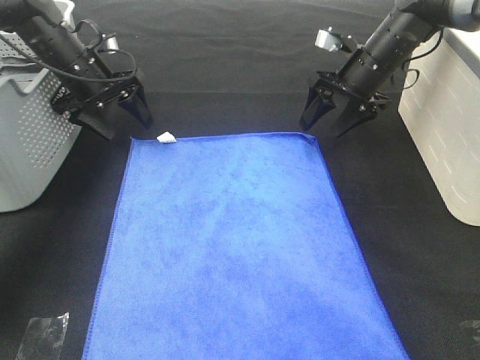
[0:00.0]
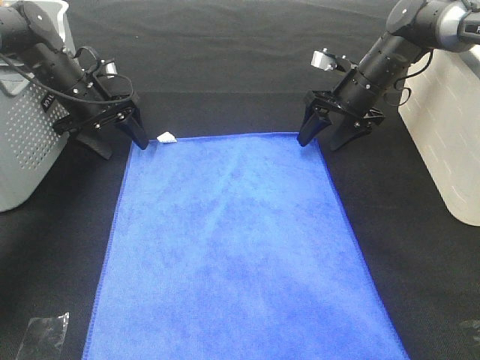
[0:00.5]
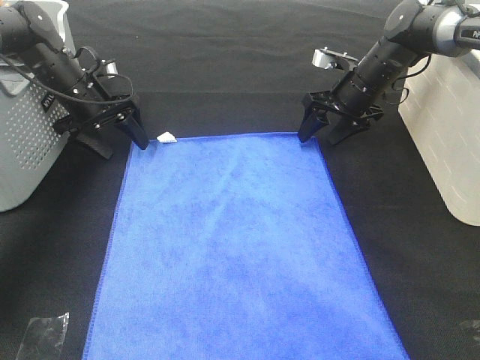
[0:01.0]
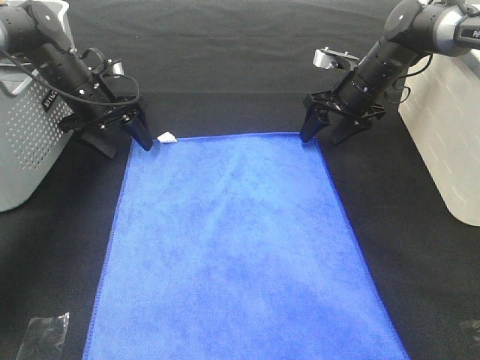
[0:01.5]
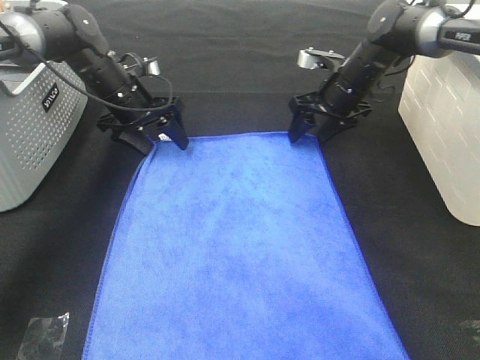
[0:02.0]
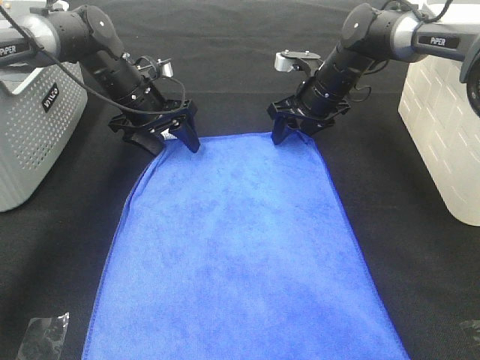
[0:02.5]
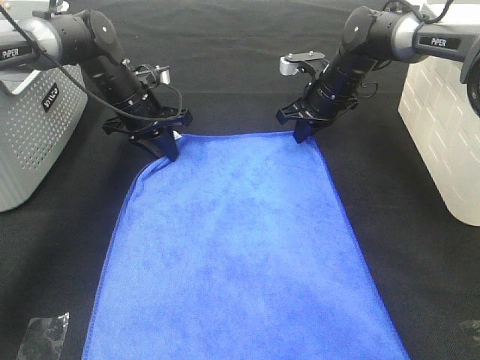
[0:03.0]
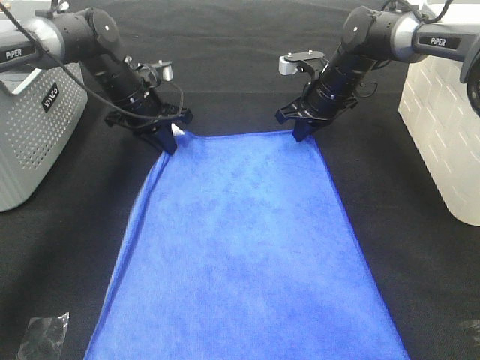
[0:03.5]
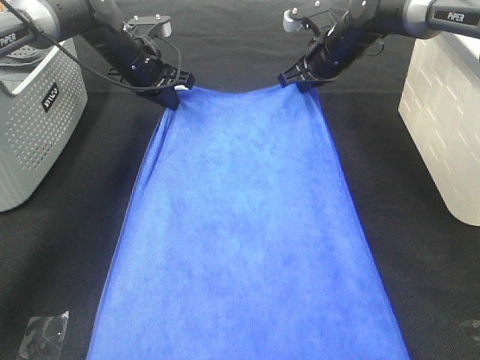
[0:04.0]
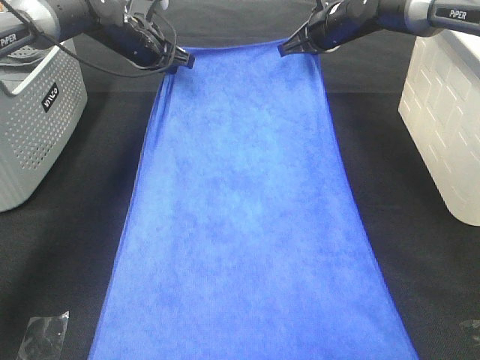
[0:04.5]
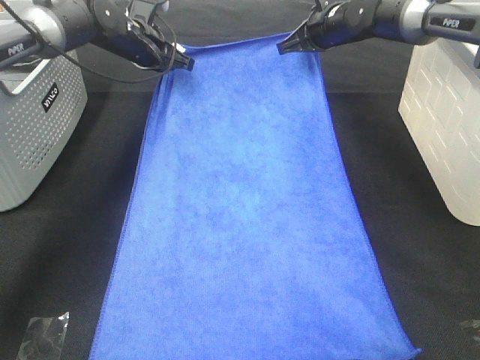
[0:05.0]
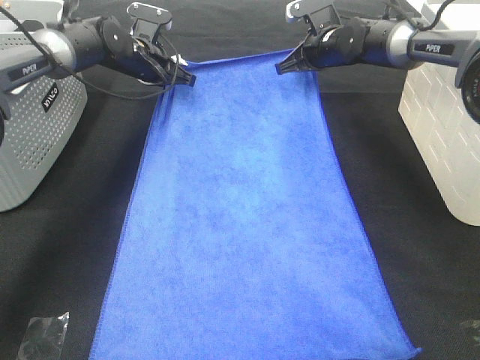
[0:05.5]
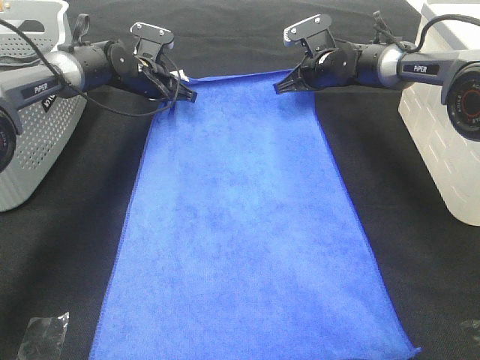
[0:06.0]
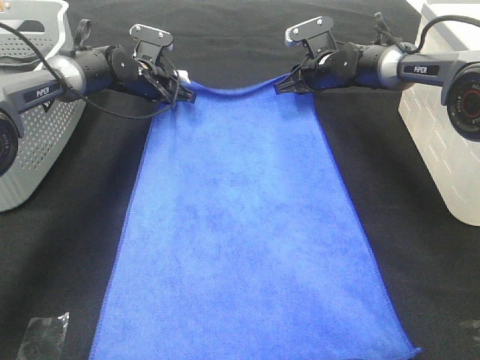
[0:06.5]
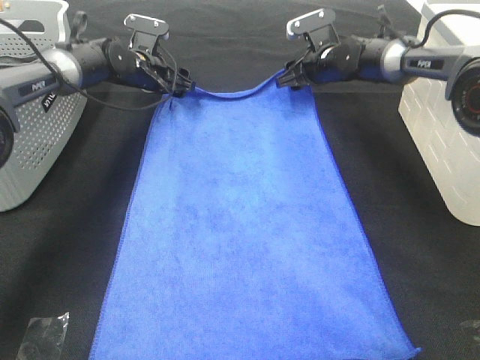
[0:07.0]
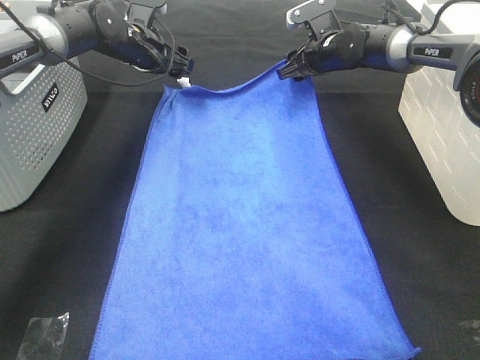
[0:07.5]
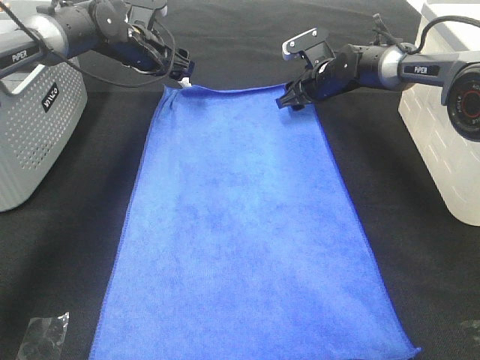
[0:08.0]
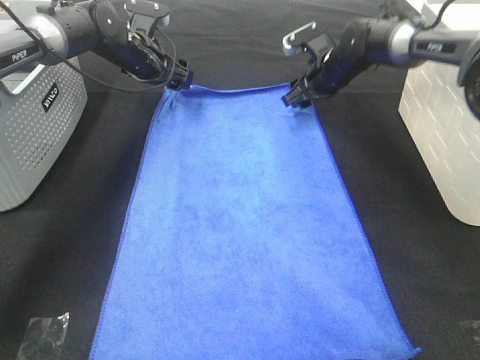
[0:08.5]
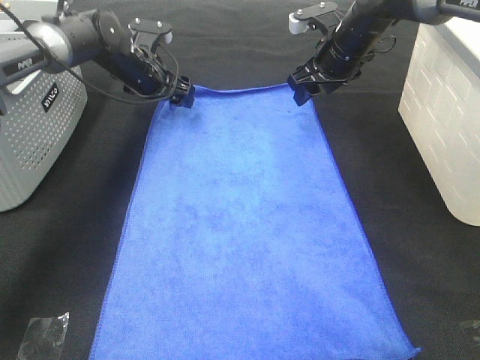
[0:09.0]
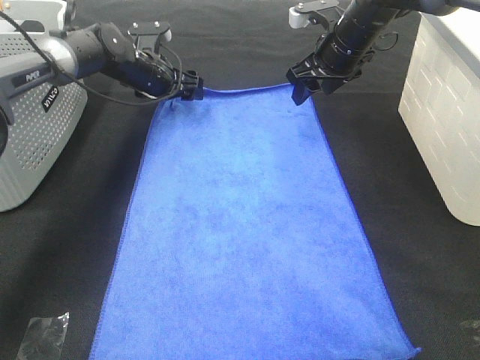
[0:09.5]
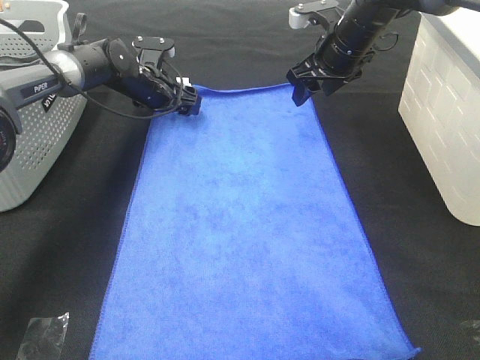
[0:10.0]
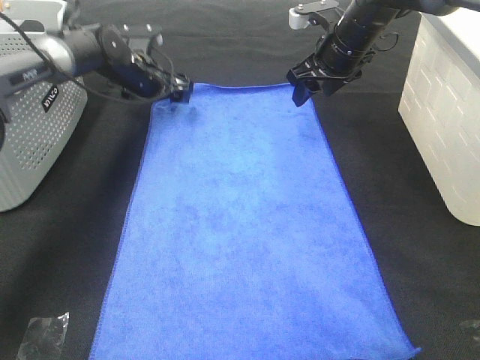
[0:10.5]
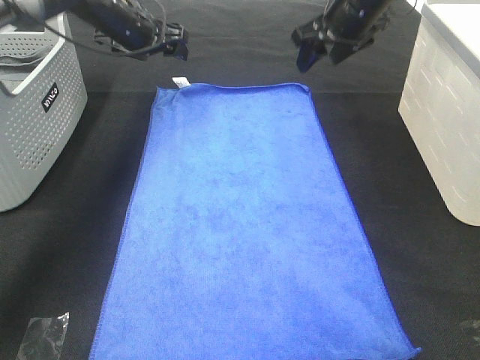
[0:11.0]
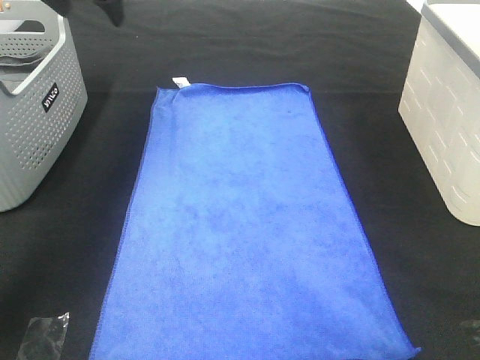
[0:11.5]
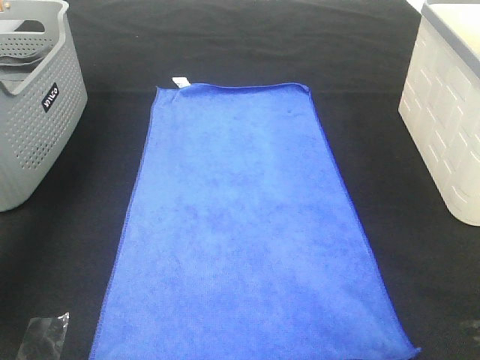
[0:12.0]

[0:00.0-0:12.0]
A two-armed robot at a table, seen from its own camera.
Task of the whole recording: Remove the towel and place it.
Step, 0:00.0 to 0:02.0: Right hand:adjust the blue towel.
Step, 0:00.0 to 0:04.0: Left hand:adjust the blue towel.
0:00.0 to 0:02.0: The left gripper heads to the right, covering roughly 5 cm. The right gripper moves approximately 5 cm.
0:02.0 to 0:04.0: The right gripper travels upward by some 5 cm, and closes its fingers, while the left gripper ends up some 5 cm from where it was, and closes up.
0:04.0 to 0:06.0: The two grippers go approximately 5 cm downward.
0:06.0 to 0:08.0: The left gripper travels upward by about 5 cm, and opens its fingers; the right gripper opens.
0:08.0 to 0:10.0: The right gripper shifts approximately 10 cm upward and backward, while the left gripper moves downward, some 5 cm.
0:10.0 to 0:12.0: The left gripper goes roughly 35 cm upward and to the left, while the right gripper is displaced upward, to the right and backward by approximately 25 cm.

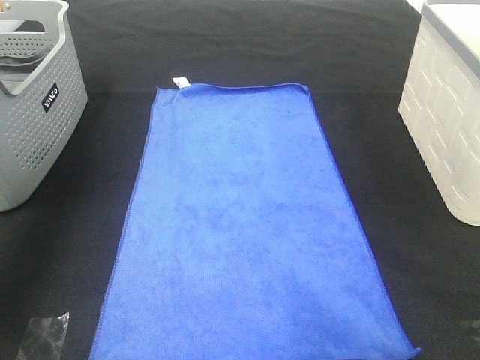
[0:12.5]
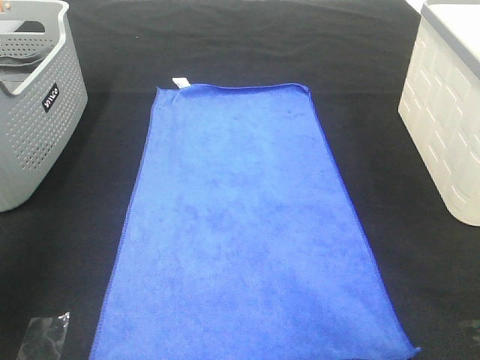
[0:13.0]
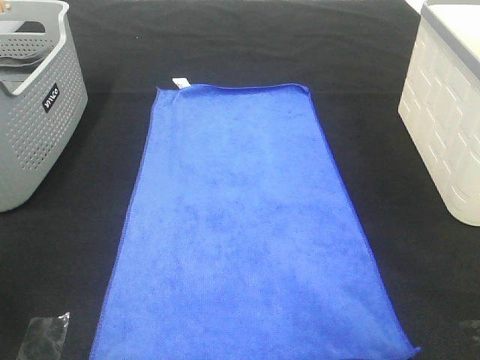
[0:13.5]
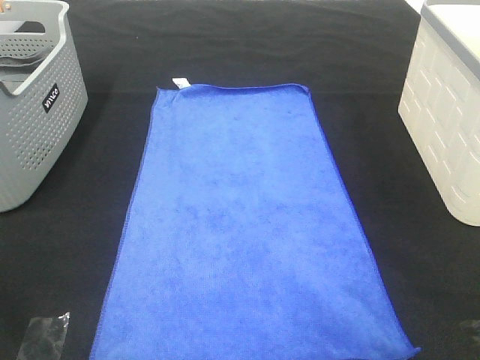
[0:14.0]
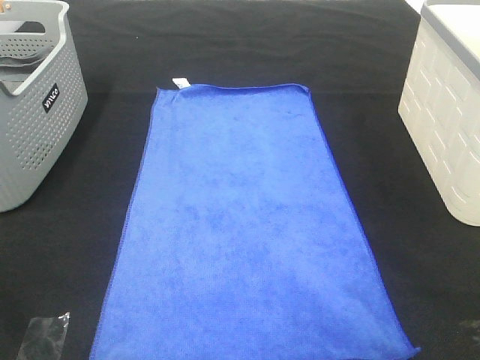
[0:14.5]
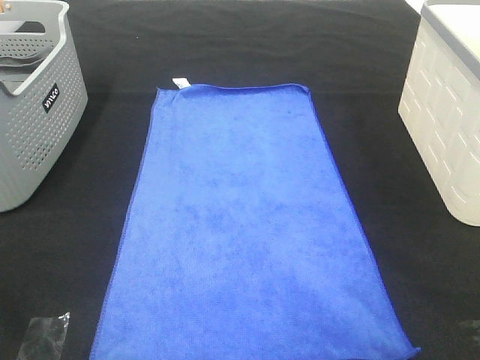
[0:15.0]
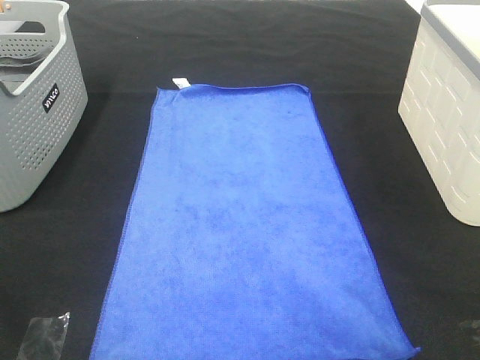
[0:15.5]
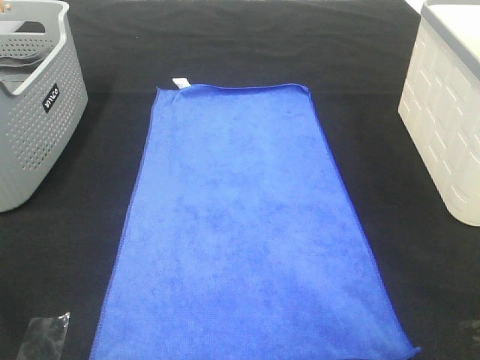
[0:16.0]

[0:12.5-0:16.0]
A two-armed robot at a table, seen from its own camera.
Task of the whole recording: Remove the towel and place it.
0:12.5 to 0:14.5: The left gripper goes some 35 cm backward.
0:14.5 to 0:16.0: Both grippers stay put.

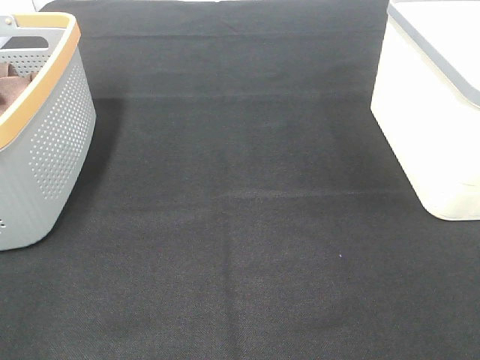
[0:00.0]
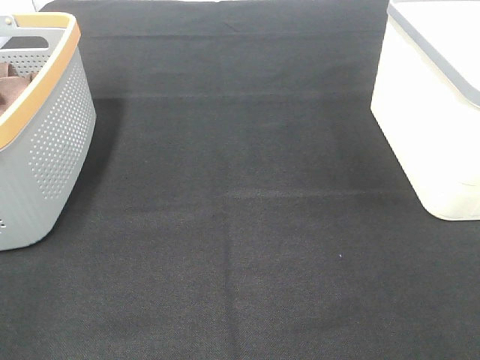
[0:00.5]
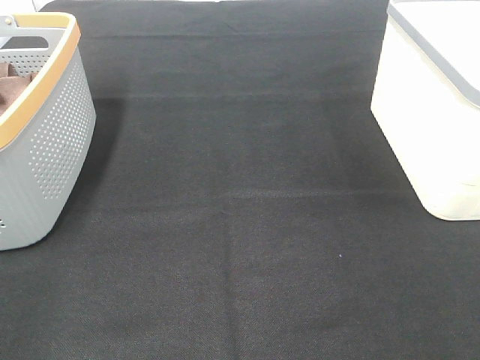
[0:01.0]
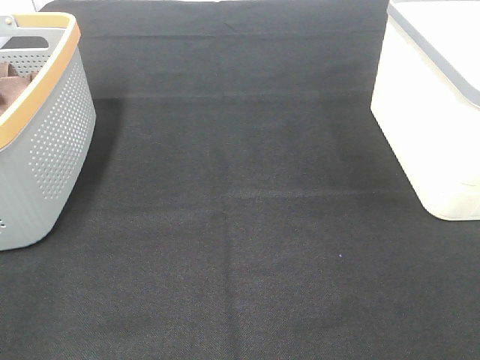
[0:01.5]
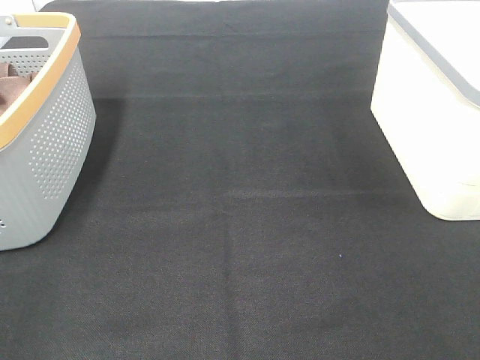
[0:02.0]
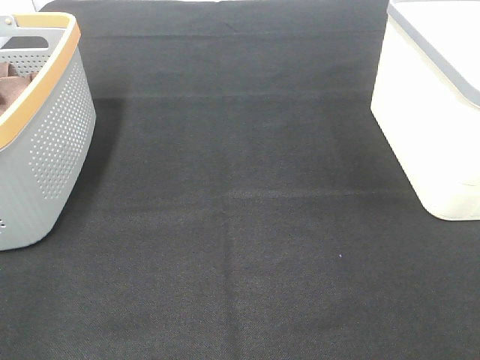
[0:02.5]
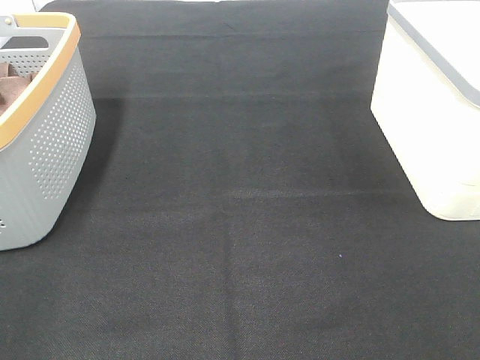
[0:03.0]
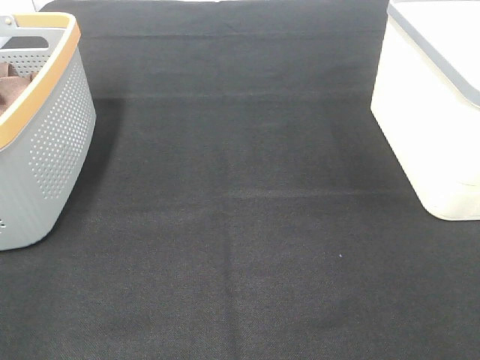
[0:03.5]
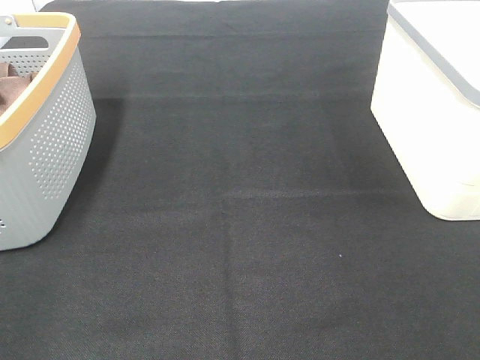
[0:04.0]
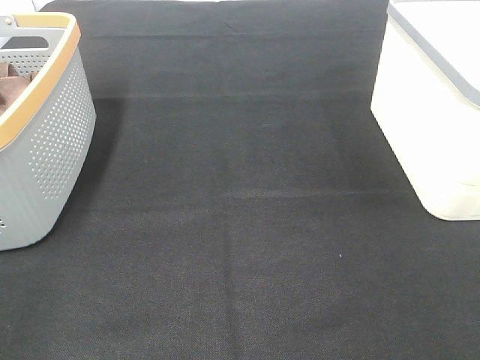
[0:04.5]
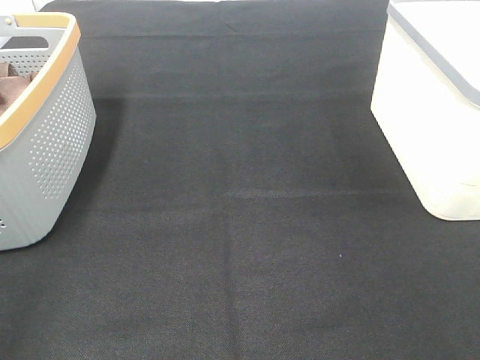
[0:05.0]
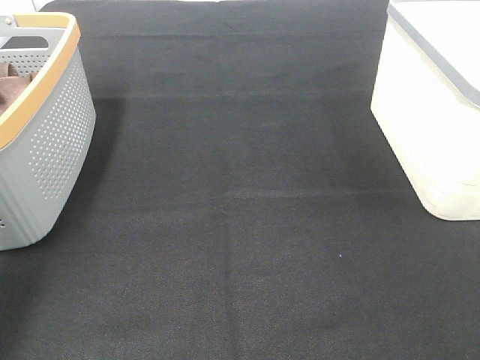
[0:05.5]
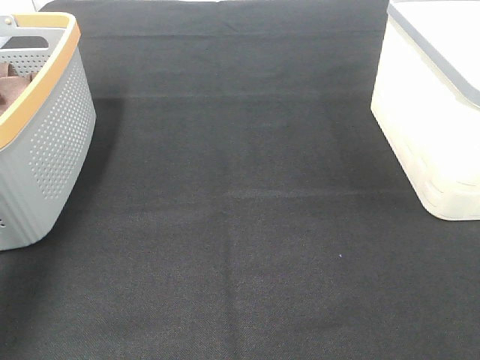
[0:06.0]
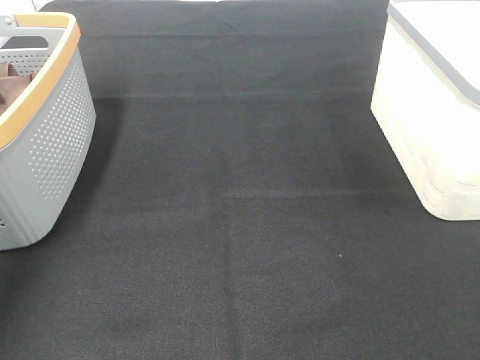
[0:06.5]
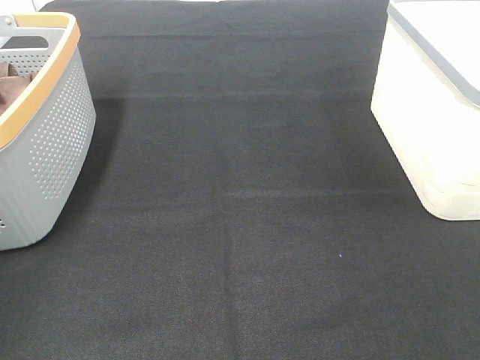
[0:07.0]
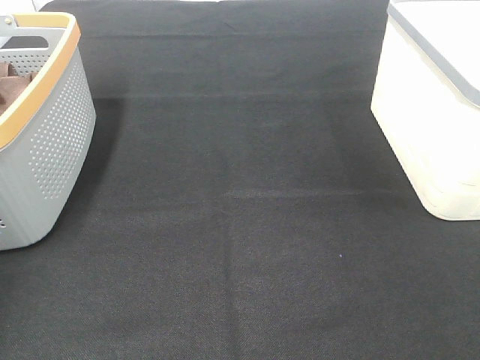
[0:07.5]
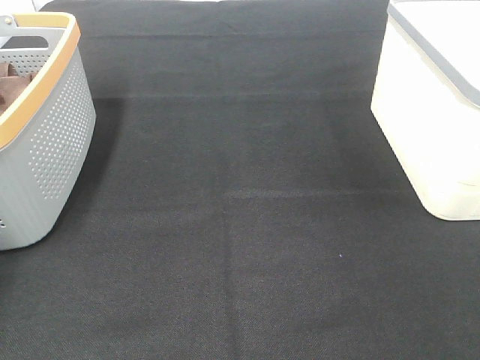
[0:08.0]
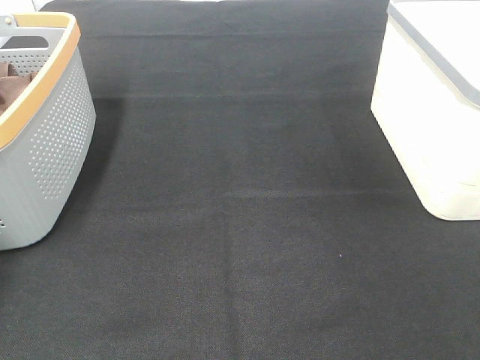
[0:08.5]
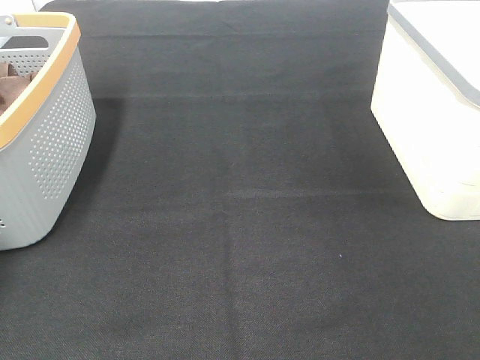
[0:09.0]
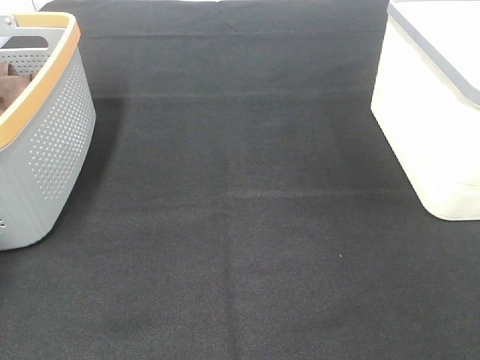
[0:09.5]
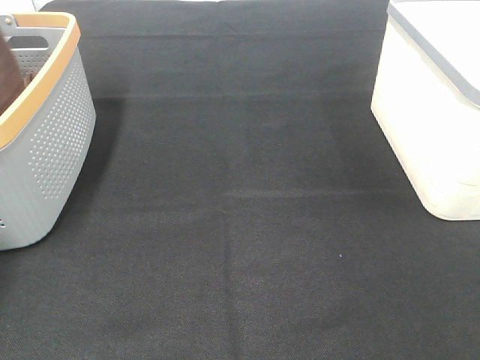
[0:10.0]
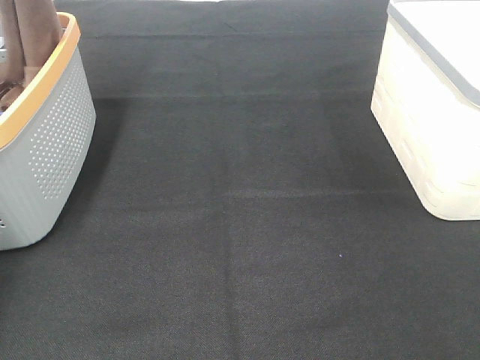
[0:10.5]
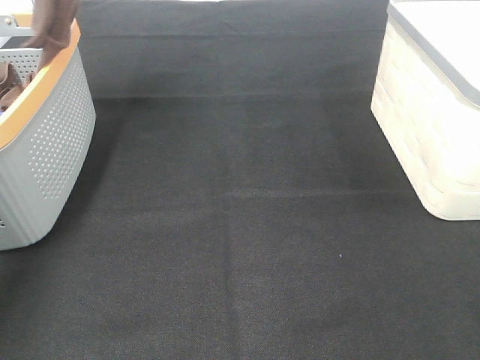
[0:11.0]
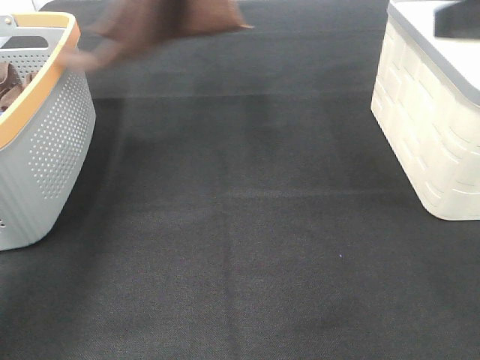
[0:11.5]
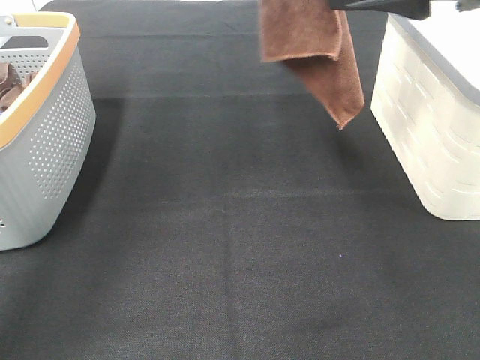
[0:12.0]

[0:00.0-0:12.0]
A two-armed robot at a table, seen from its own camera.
Task of the whole recording: Remove the towel and place it.
0:00.0 to 0:04.0: Both grippers stay put.
0:04.0 to 0:06.0: The left gripper moves forward, approximately 30 cm.
0:06.0 to 0:08.0: The left gripper moves forward, to the left and downward, some 20 cm.
0:08.0 to 0:10.0: The left gripper goes some 10 cm upward, and closes up.
0:10.0 to 0:12.0: The right gripper is displaced forward and to the left by some 25 cm; the left gripper travels to the right by approximately 30 cm.
